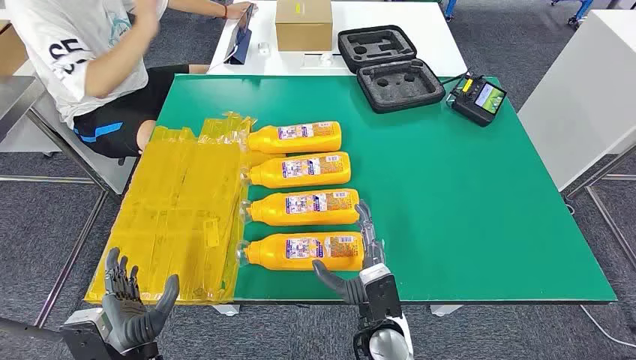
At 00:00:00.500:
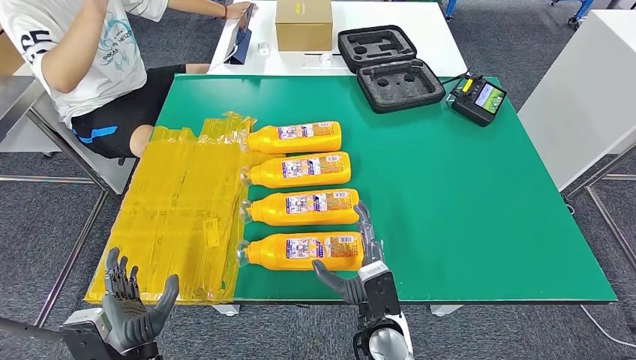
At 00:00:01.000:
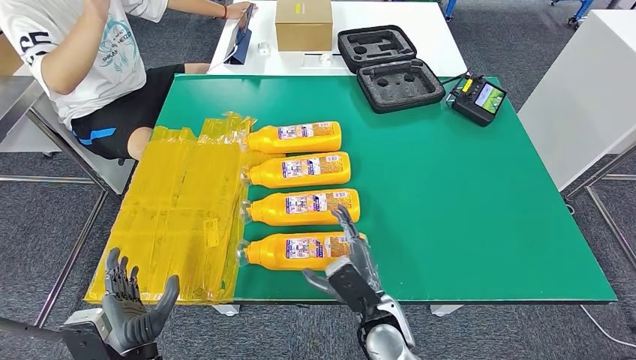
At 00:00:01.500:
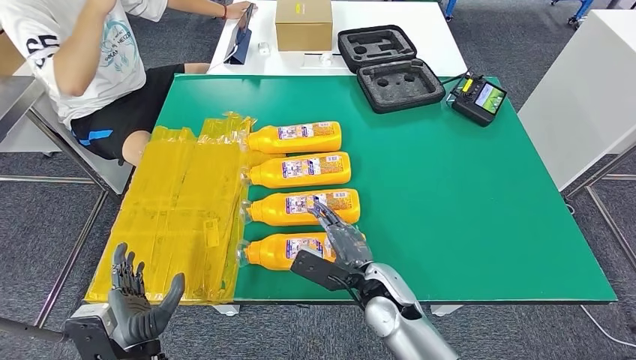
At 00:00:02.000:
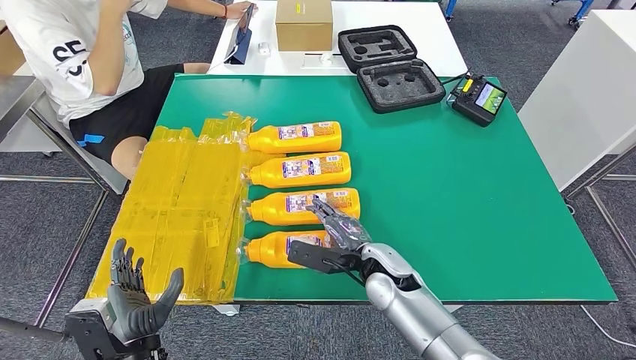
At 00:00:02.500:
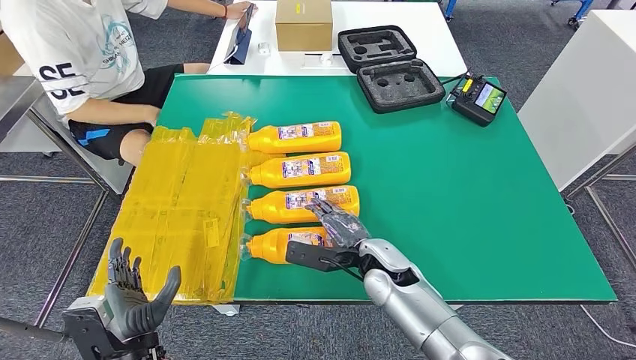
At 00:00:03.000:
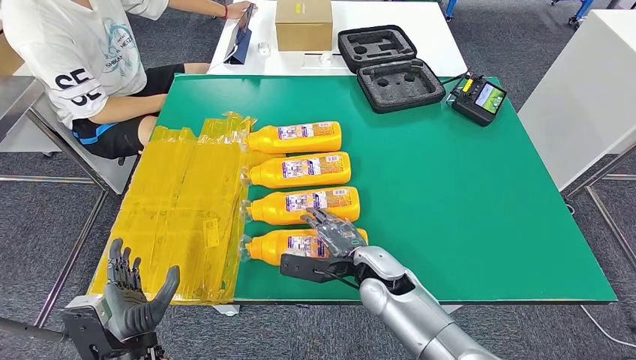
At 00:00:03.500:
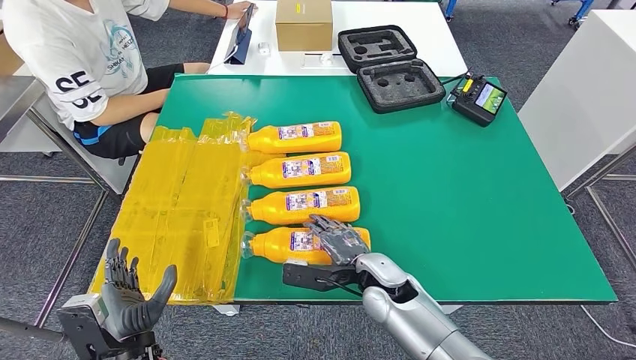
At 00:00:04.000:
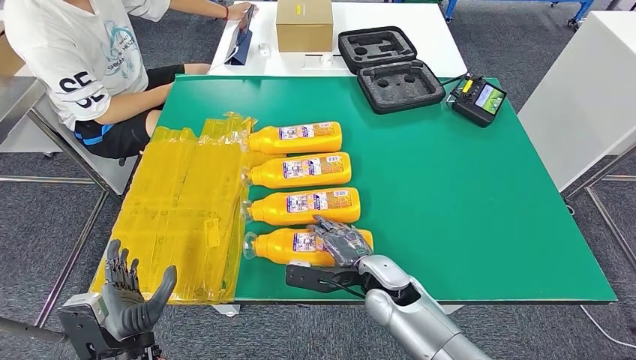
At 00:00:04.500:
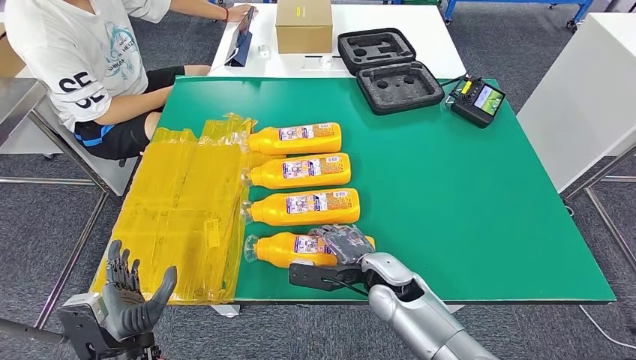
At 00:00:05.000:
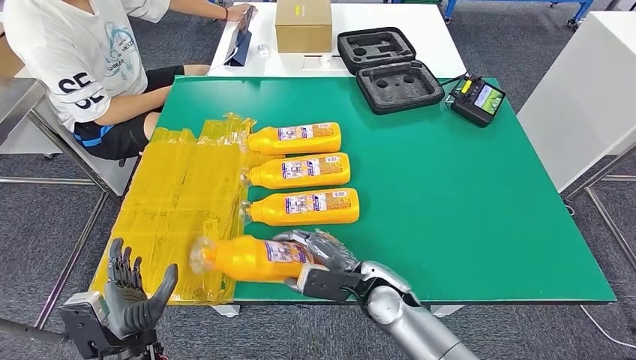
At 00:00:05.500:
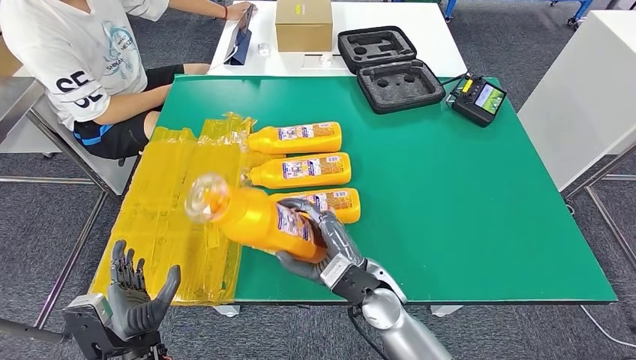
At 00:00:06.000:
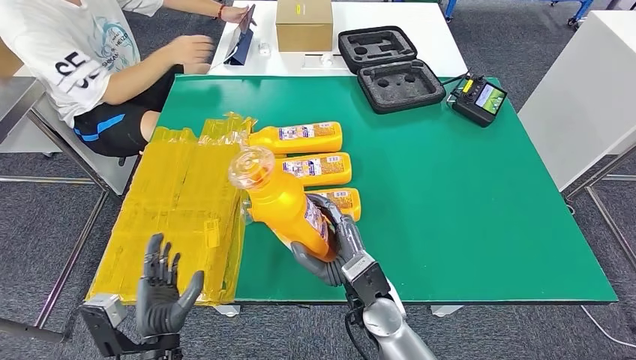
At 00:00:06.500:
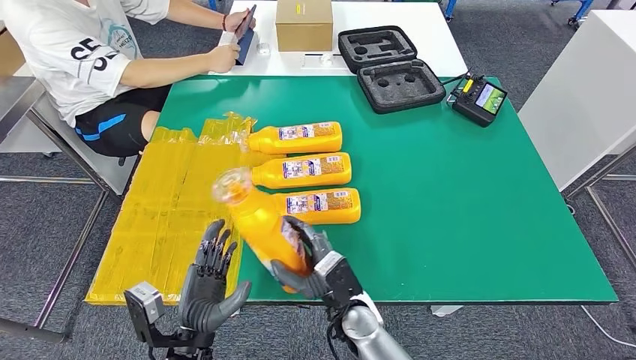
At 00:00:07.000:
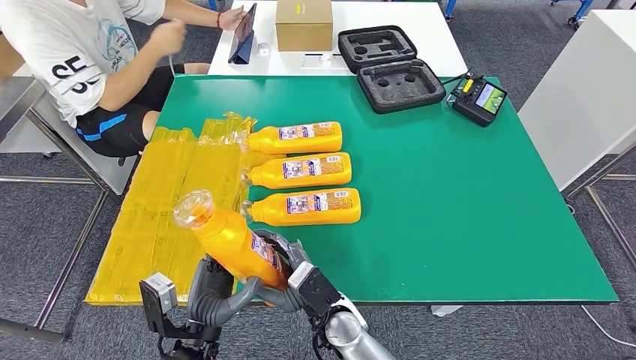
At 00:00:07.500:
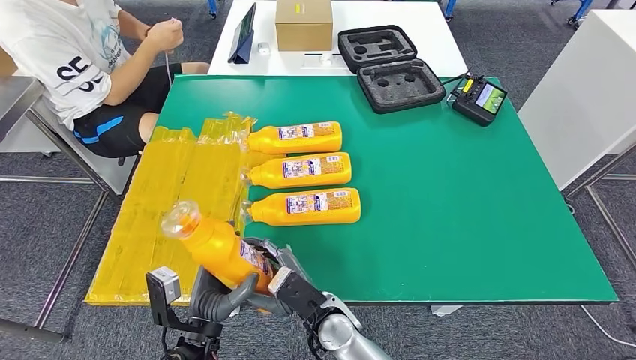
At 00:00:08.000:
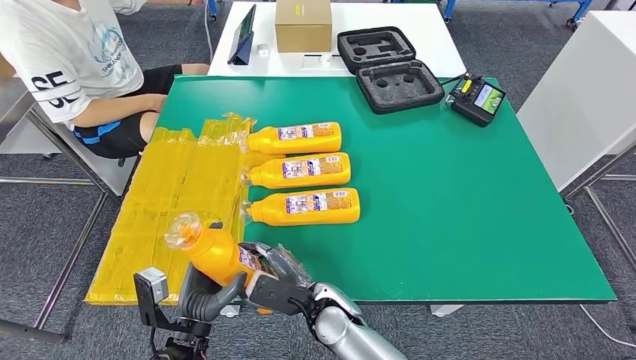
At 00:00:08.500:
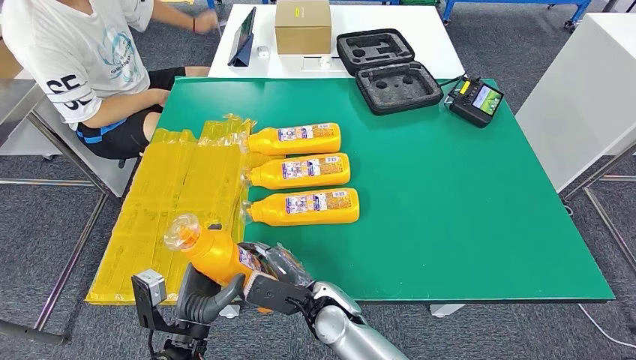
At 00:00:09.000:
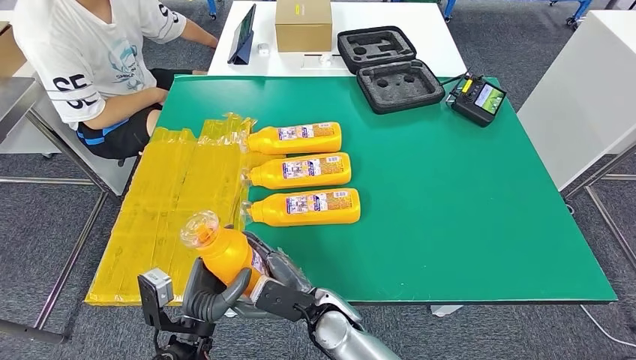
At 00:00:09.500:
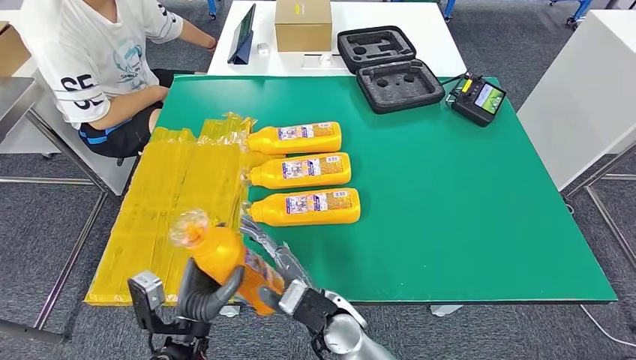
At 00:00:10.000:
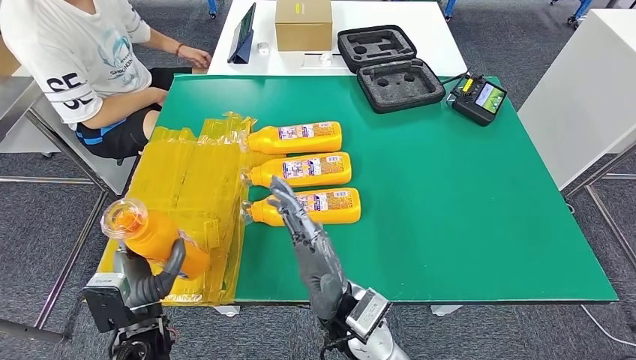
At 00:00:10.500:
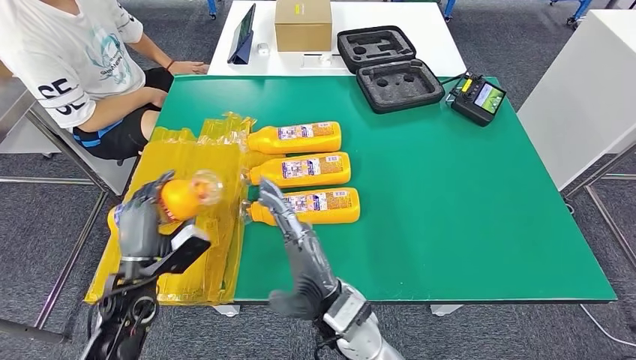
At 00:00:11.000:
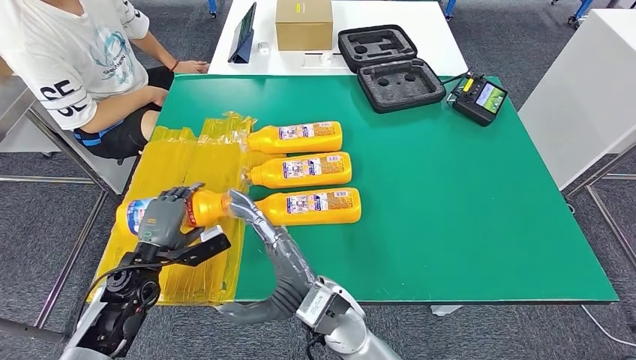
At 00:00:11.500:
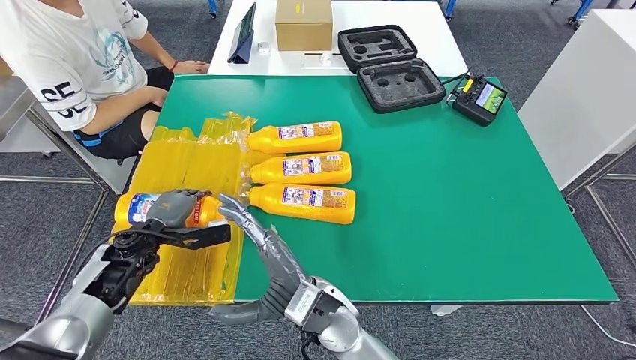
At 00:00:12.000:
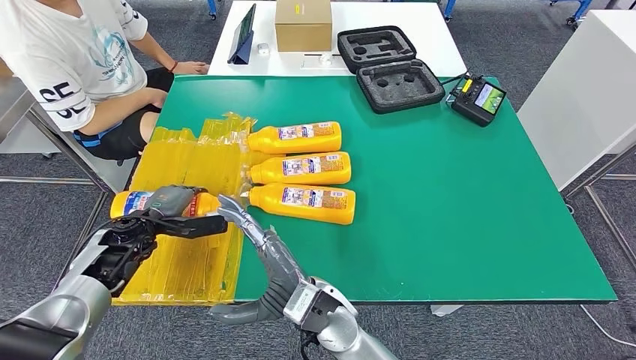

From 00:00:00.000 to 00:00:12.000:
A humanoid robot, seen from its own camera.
Step, from 00:00:00.000 to 00:00:05.500: Take the fast-moving consumer goods bottle from the table.
From 00:00:02.000 to 00:00:04.000: There are only small adjustments of the hands.
From 00:00:06.000 to 00:00:08.000: The right hand travels to the left by approximately 10 cm.
From 00:00:08.000 to 00:00:10.000: The left hand goes roughly 5 cm to the left. The right hand heads upward, covering roughly 10 cm.

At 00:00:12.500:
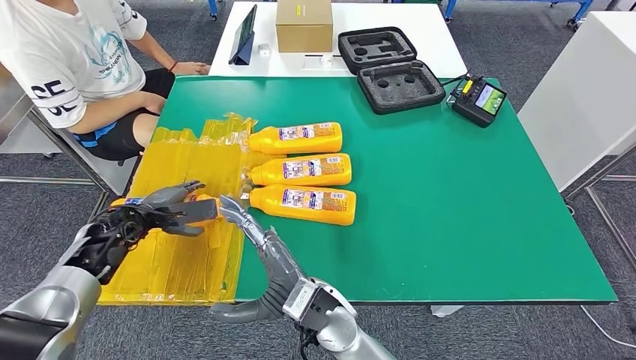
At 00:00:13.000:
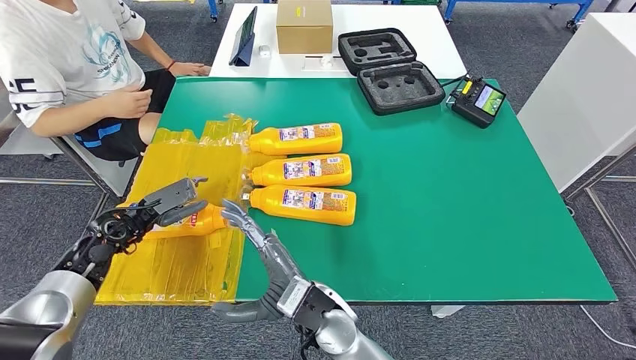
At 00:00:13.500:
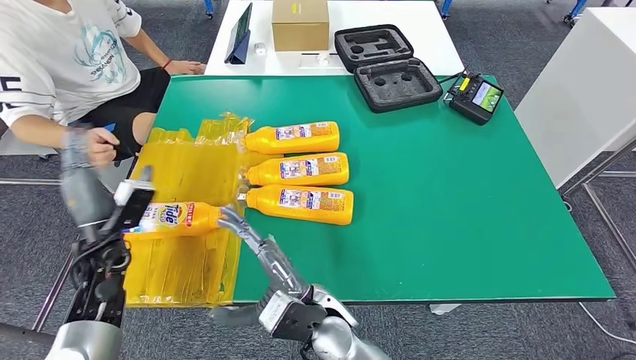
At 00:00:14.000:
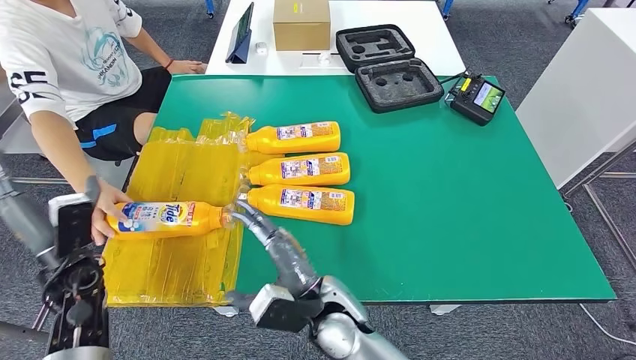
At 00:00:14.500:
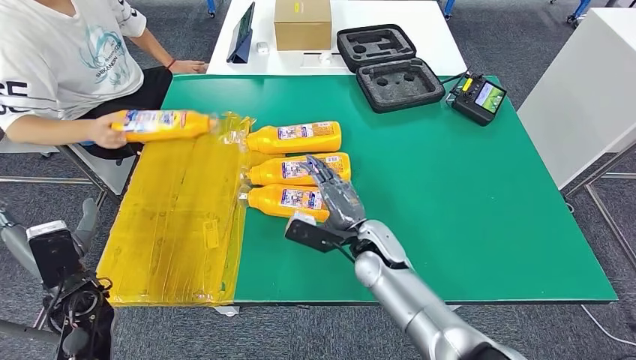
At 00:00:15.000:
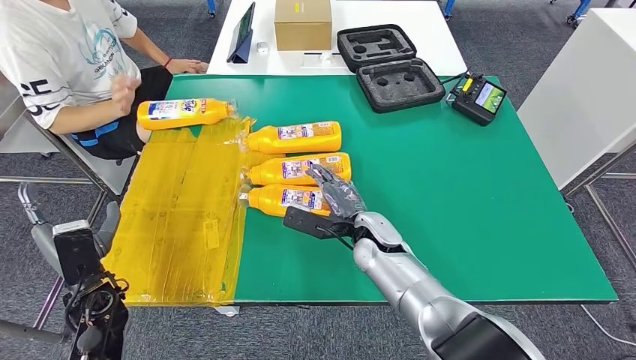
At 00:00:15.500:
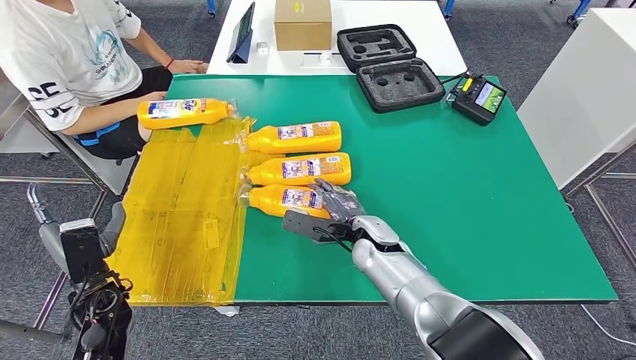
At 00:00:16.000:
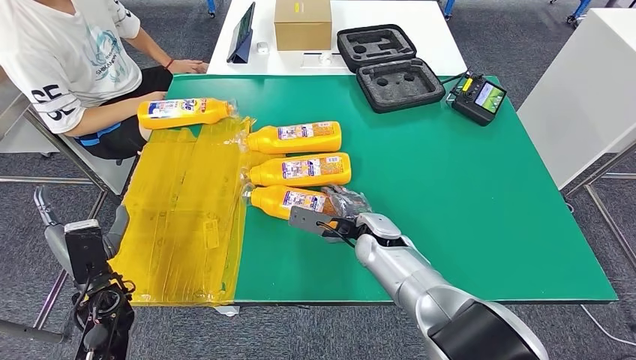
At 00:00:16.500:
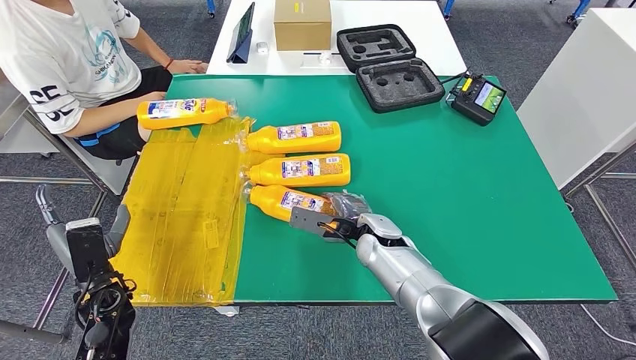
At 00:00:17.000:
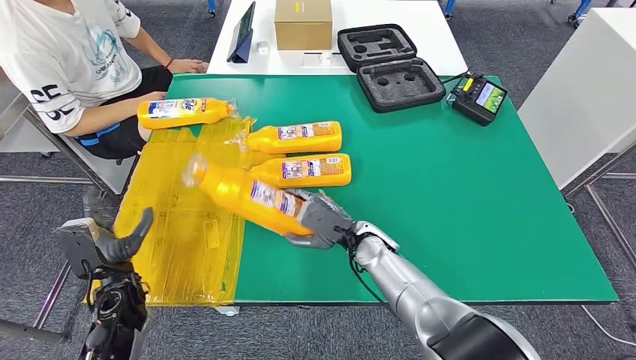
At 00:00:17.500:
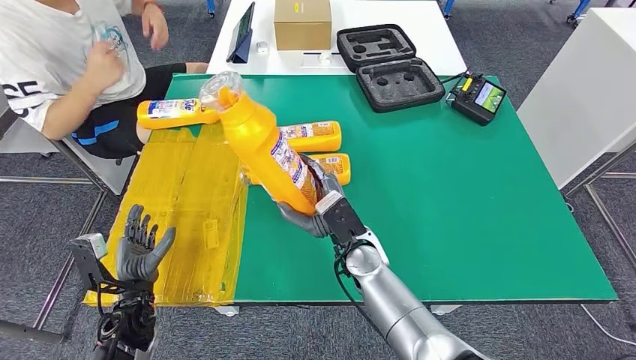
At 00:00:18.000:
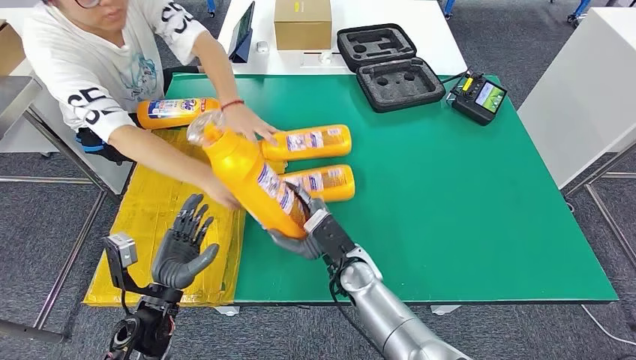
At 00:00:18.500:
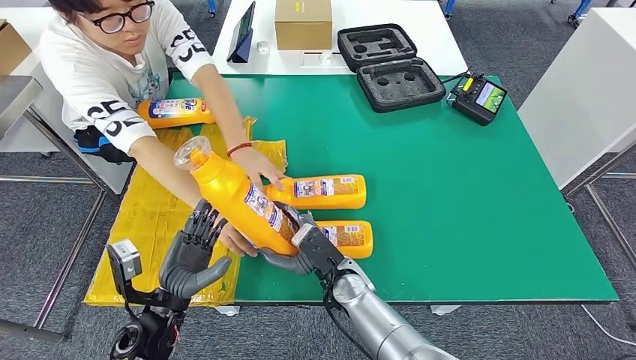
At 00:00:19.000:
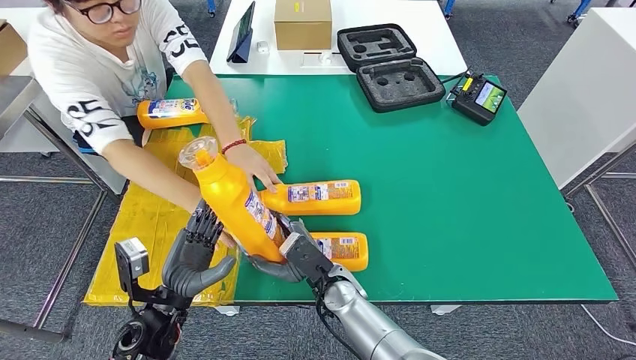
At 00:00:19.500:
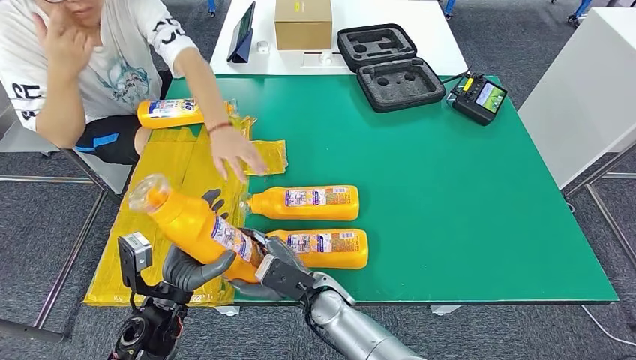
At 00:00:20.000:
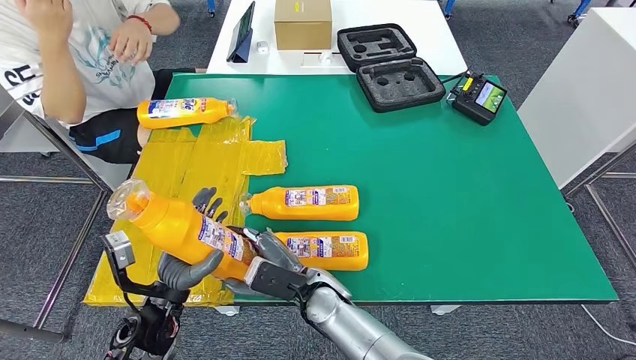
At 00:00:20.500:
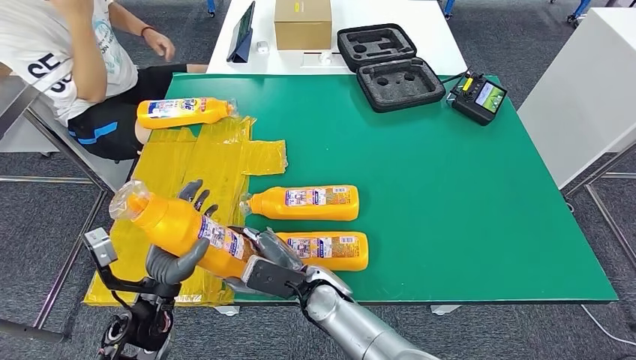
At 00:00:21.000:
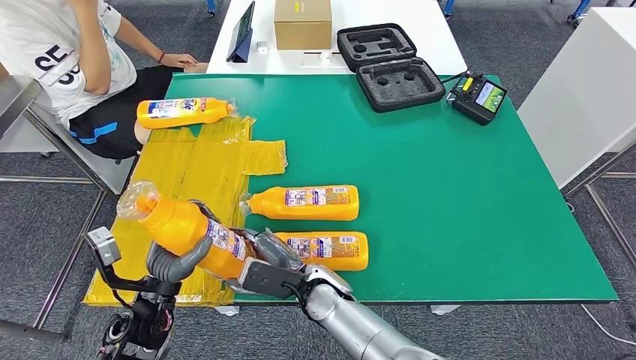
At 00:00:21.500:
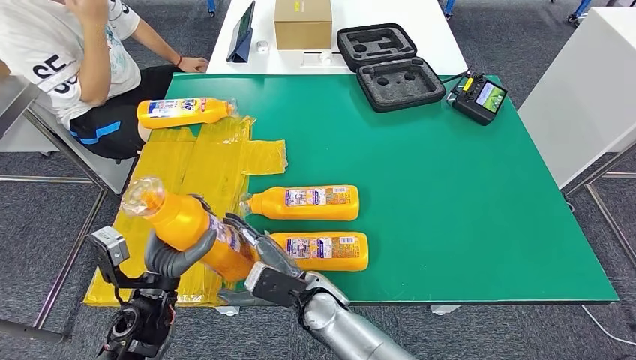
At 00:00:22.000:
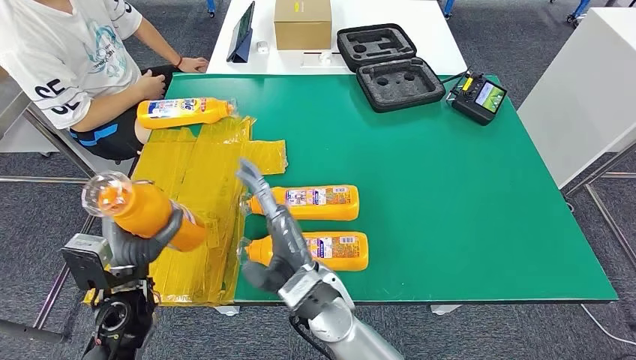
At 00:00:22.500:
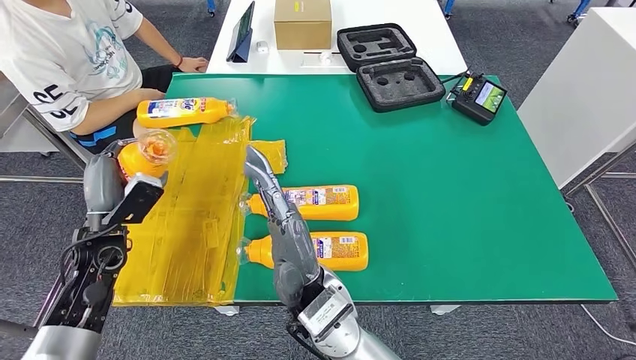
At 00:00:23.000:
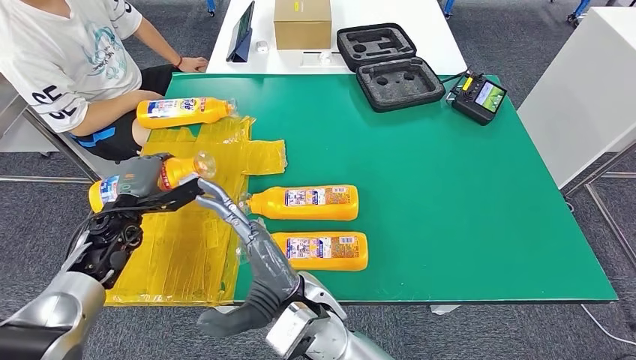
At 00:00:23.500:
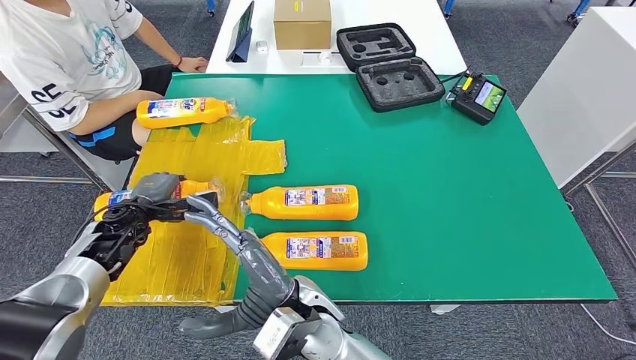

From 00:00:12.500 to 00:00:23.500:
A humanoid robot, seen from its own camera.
Step, from 00:00:13.000 to 00:00:19.000: Pick up the fast-moving consumer goods bottle from the table.
From 00:00:20.000 to 00:00:21.500: The hands move only a little.
